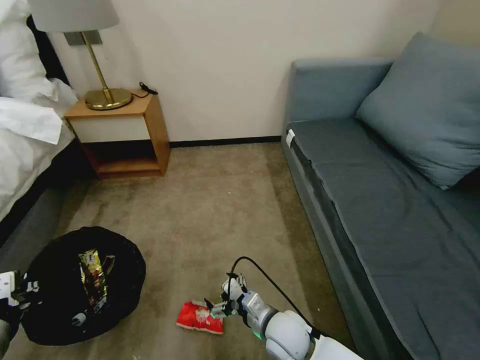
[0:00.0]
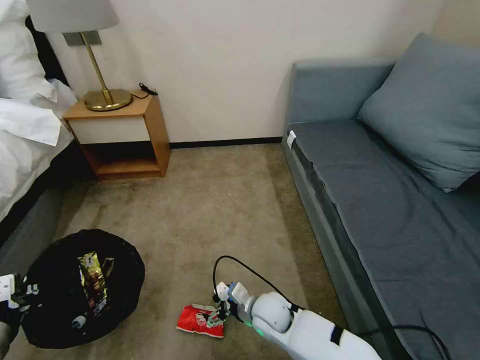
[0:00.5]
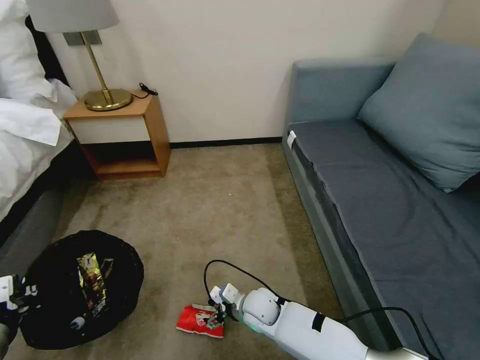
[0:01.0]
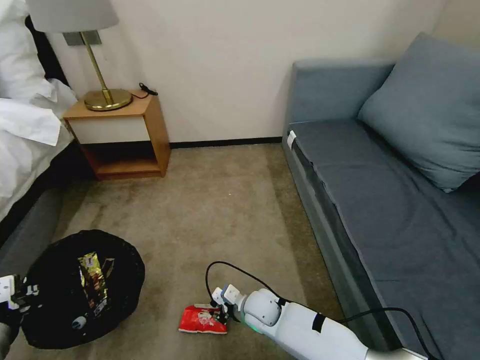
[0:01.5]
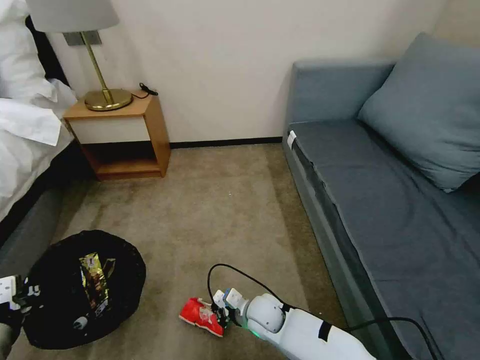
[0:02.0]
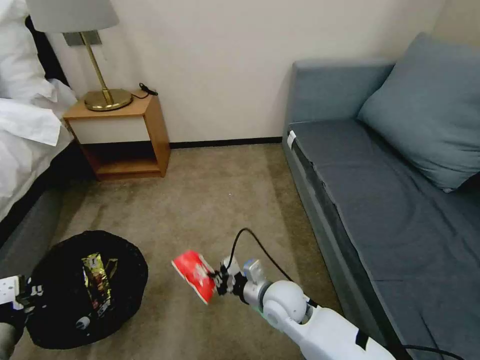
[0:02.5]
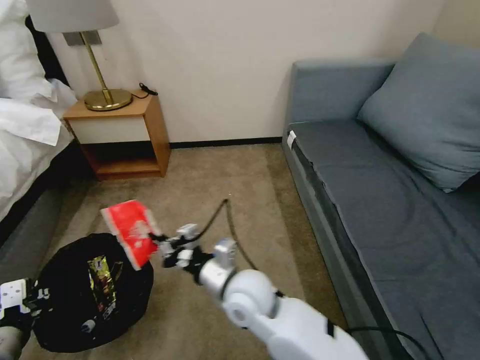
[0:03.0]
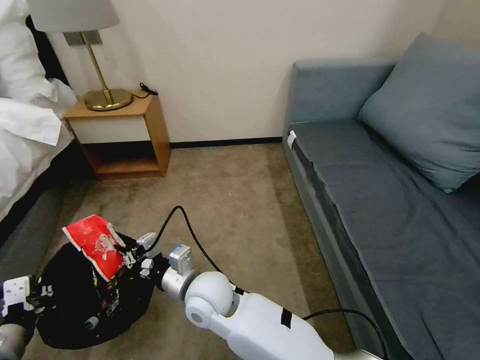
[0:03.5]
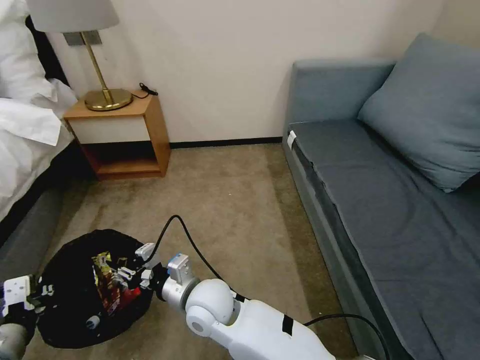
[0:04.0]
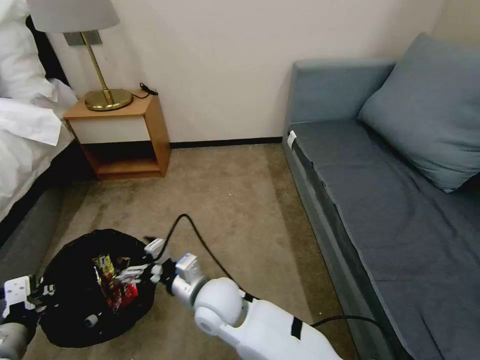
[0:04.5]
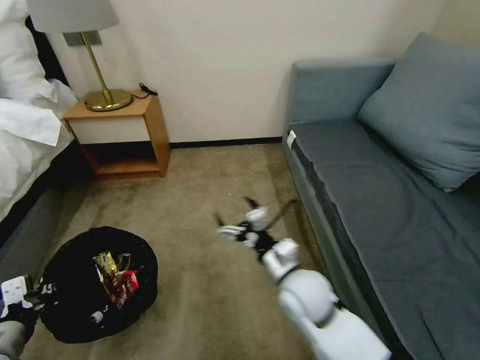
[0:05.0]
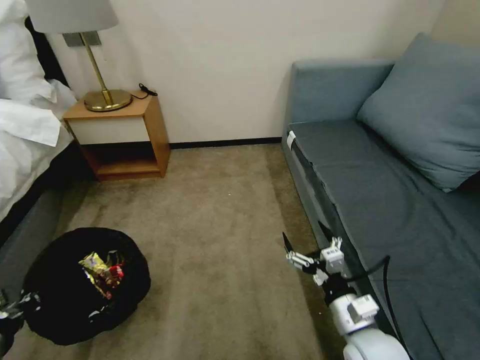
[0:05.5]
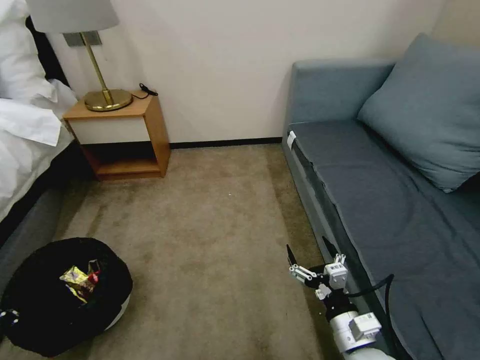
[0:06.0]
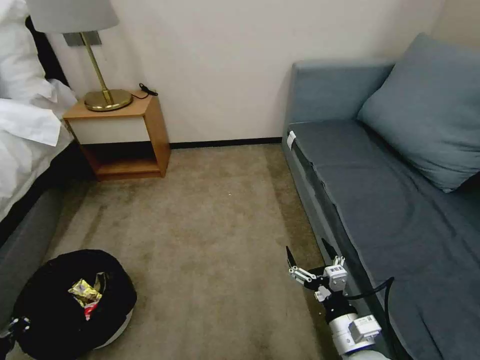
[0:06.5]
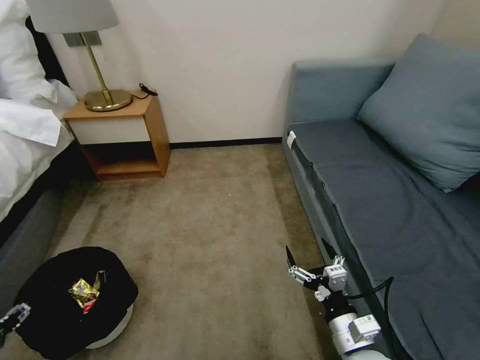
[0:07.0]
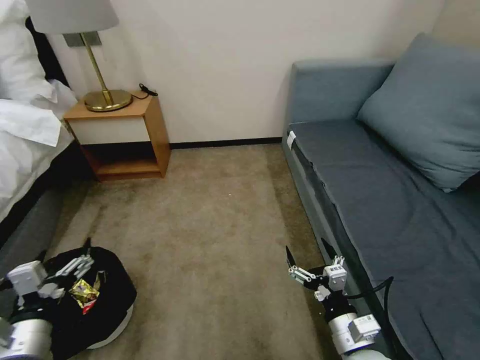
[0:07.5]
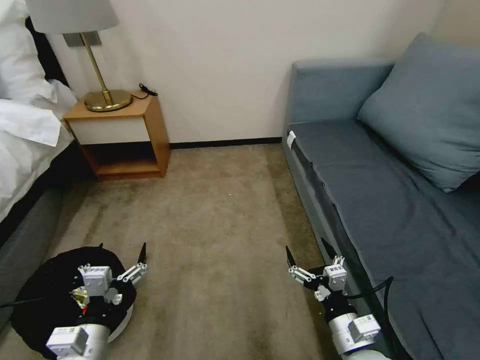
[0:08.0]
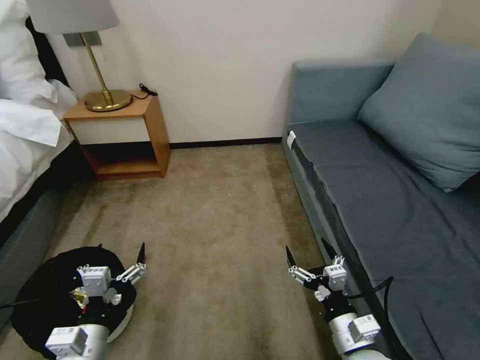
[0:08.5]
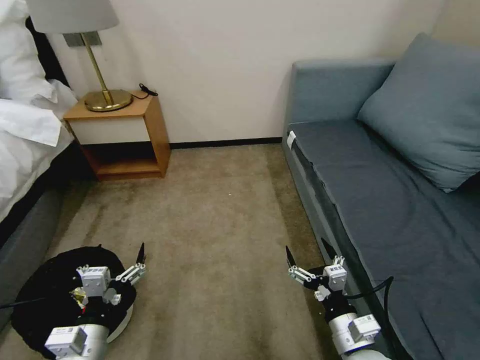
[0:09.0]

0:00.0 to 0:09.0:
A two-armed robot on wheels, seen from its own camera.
Task of the whole recording: Pick up the trash bin, then pick up the garbage on the floor and place it into the trash bin.
0:00.0 to 0:02.0: The right gripper goes approximately 10 cm downward and forward, and closes its fingers.
0:02.0 to 0:04.5: The right gripper travels upward and to the left by some 20 cm, and opens up.
0:04.5 to 0:07.0: The left gripper heads to the left, covering approximately 10 cm, and opens, while the right gripper travels to the right and backward by approximately 30 cm.
0:07.0 to 0:09.0: The left gripper goes about 20 cm to the right, and opens up.

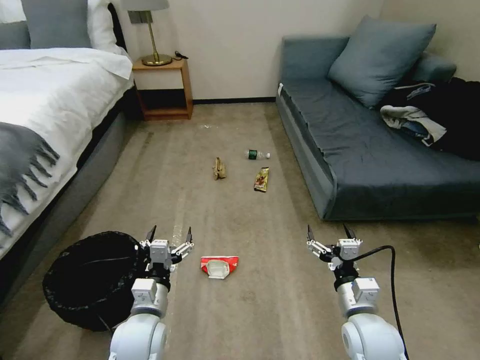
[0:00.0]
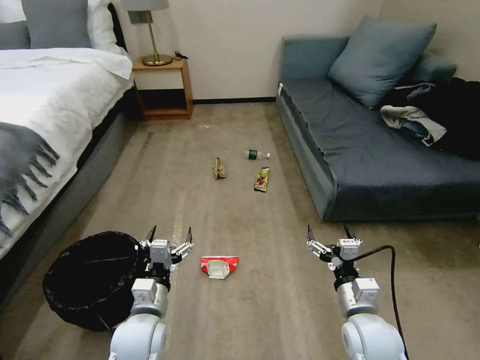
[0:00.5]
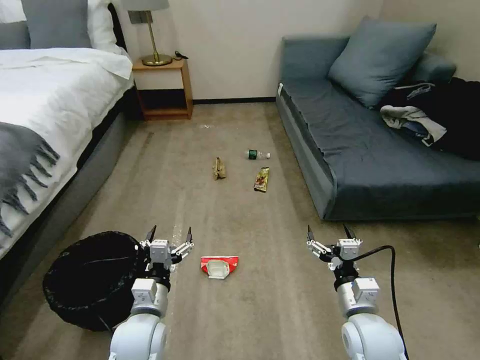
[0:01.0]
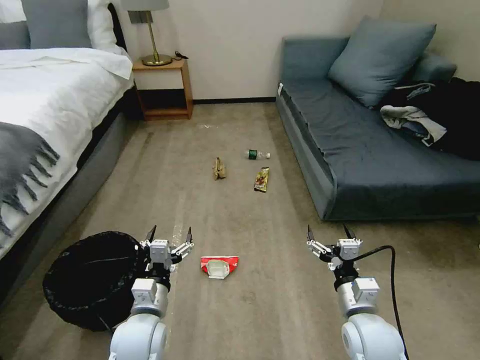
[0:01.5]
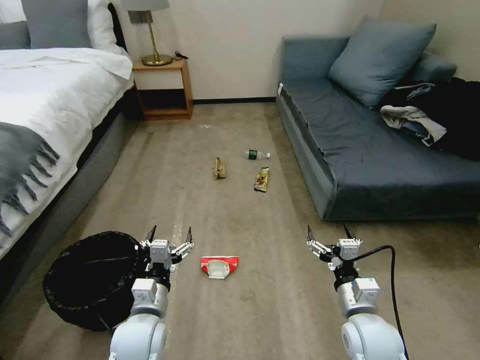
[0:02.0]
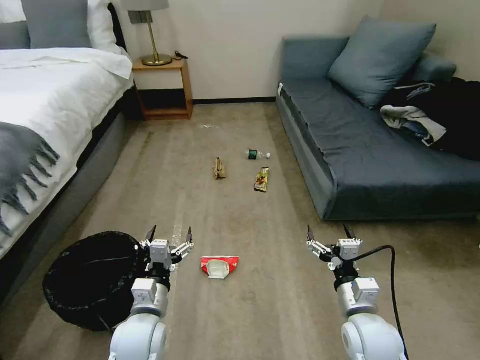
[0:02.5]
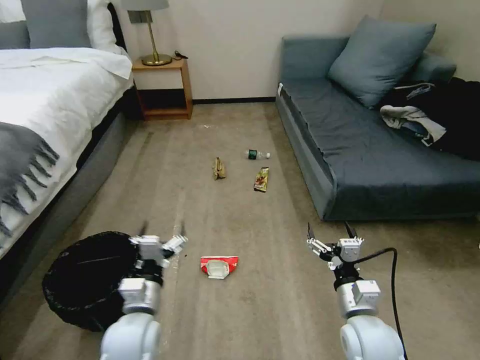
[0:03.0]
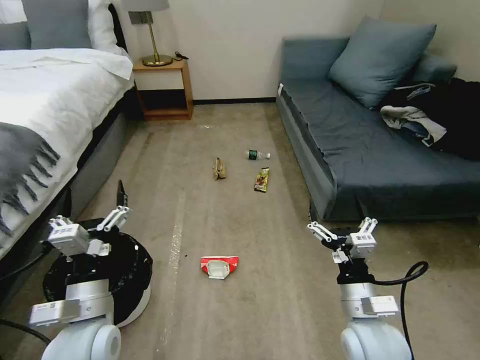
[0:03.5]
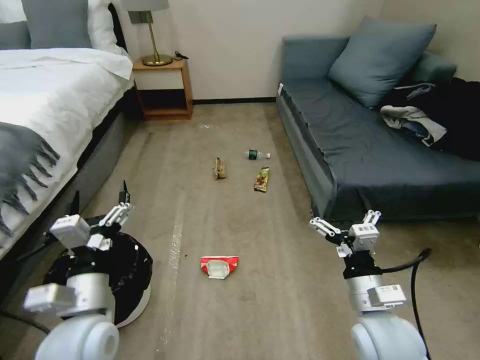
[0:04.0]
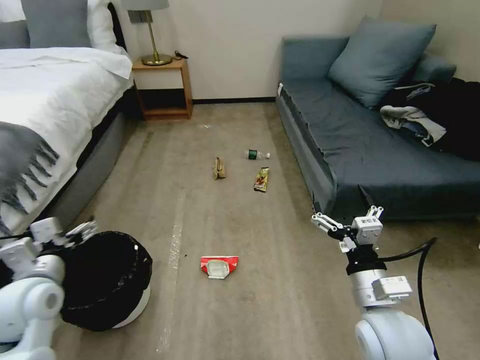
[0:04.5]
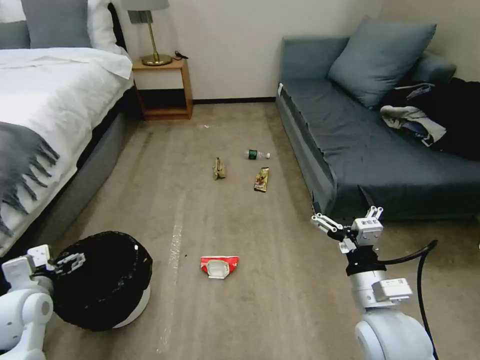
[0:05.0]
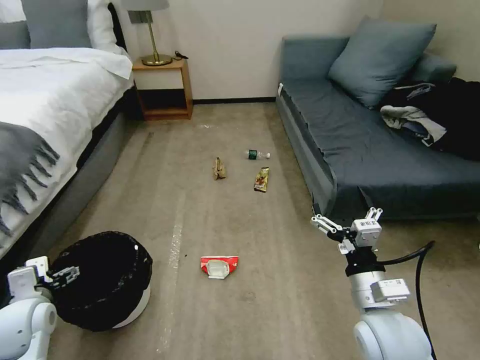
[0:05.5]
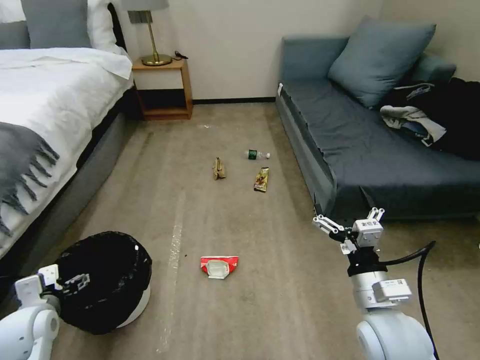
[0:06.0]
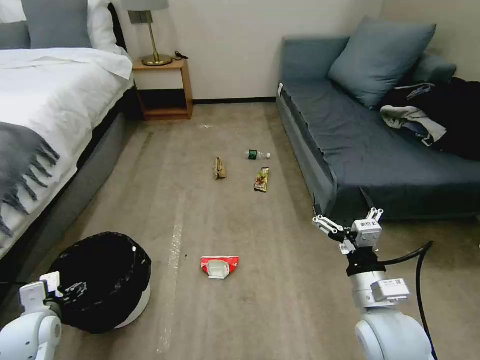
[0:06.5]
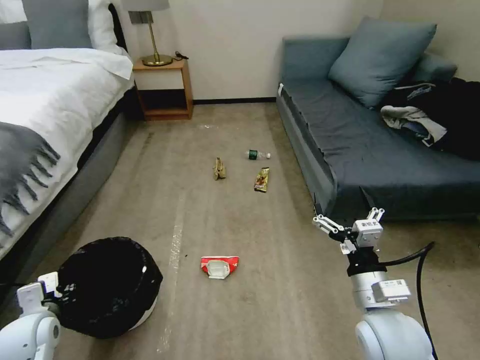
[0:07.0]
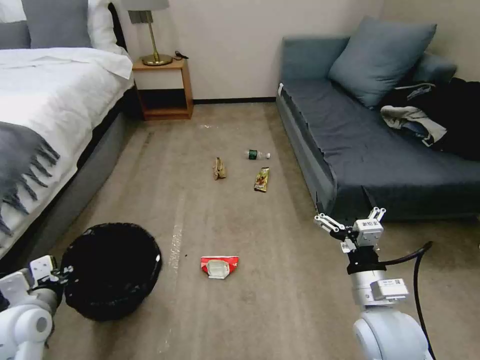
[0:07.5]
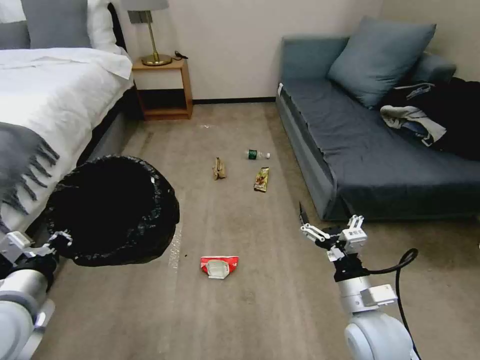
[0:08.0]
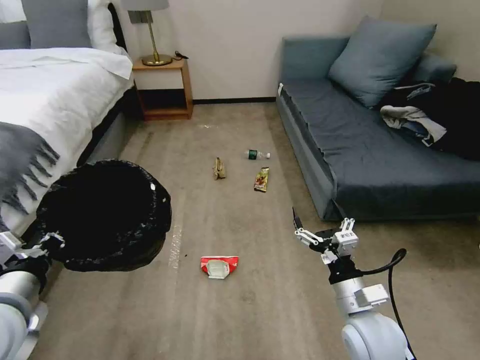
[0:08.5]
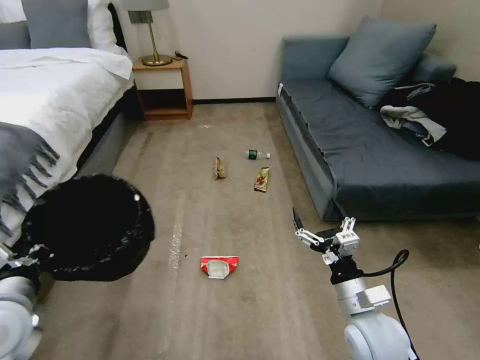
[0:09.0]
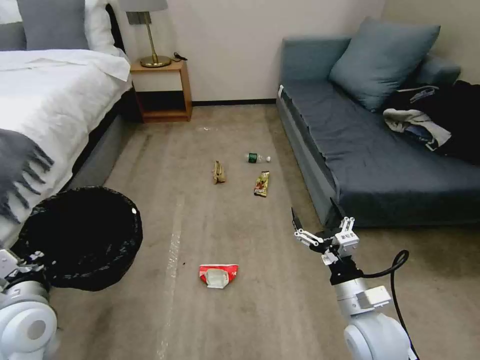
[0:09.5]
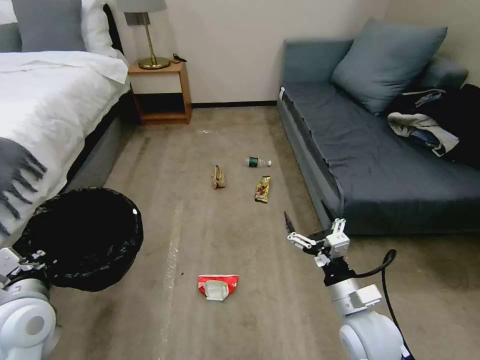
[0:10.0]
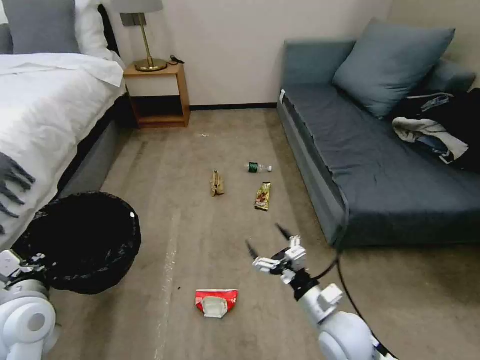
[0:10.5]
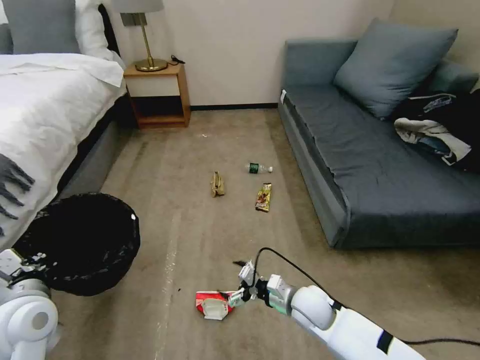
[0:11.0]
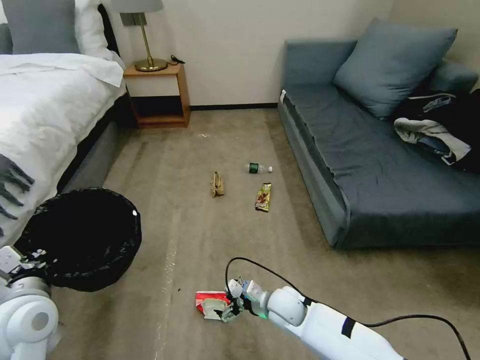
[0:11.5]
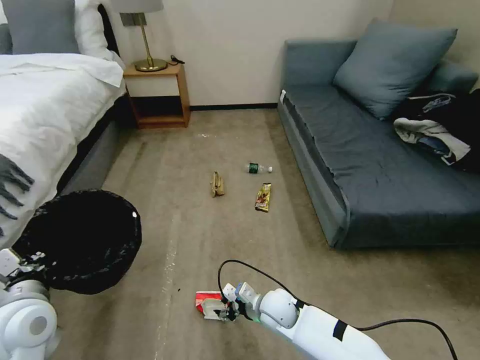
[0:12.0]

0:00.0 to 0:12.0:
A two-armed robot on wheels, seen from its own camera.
Task of the whole recording: Pick up the trash bin, then pick up the garbage on the floor and place it into the trash bin.
0:02.0 to 0:04.0: The right gripper moves upward, some 5 cm, while the left gripper heads upward, covering roughly 10 cm.
0:04.0 to 0:06.0: The left gripper moves to the left and downward, approximately 20 cm.
0:06.0 to 0:08.0: The left gripper travels upward and to the right by approximately 15 cm, and closes its fingers.
0:08.0 to 0:10.0: The left gripper is displaced downward by roughly 5 cm.
0:10.0 to 0:12.0: The right gripper heads to the left, downward and forward, covering roughly 20 cm, and closes its fingers.

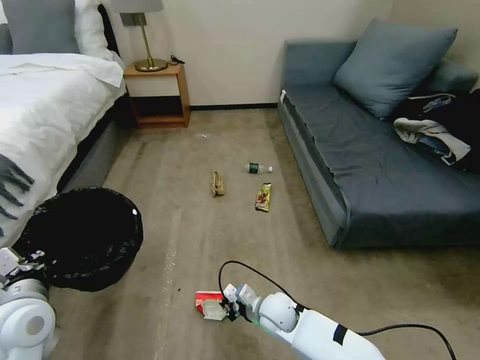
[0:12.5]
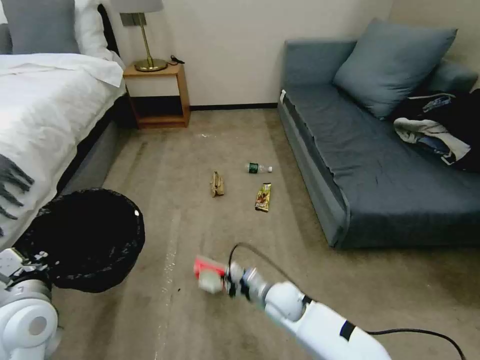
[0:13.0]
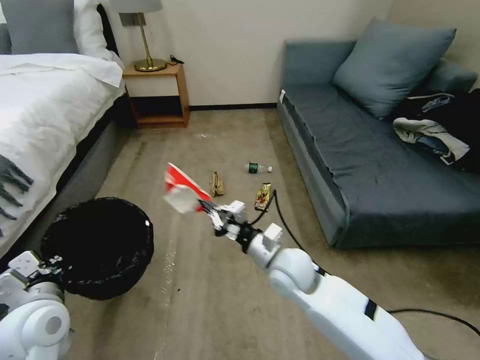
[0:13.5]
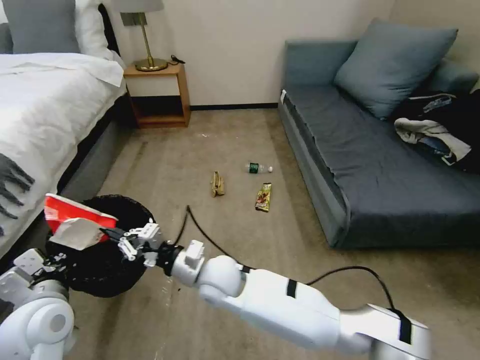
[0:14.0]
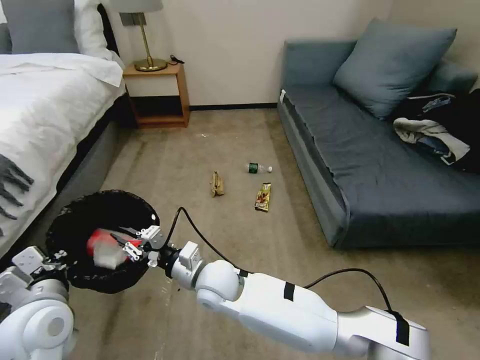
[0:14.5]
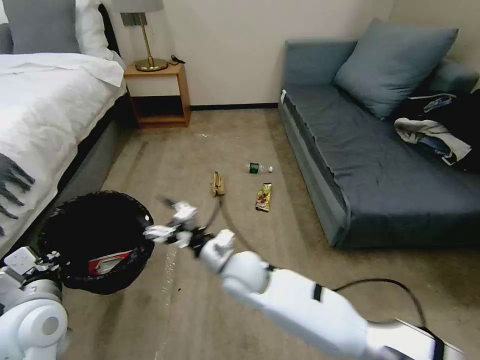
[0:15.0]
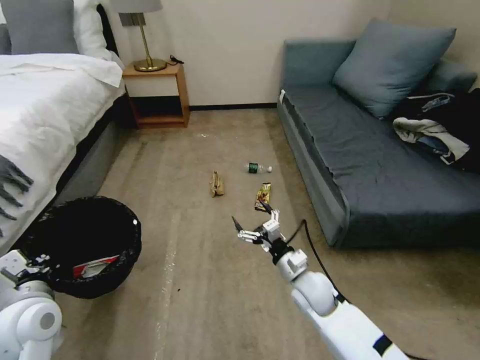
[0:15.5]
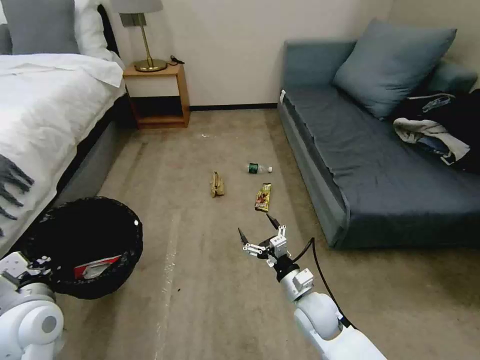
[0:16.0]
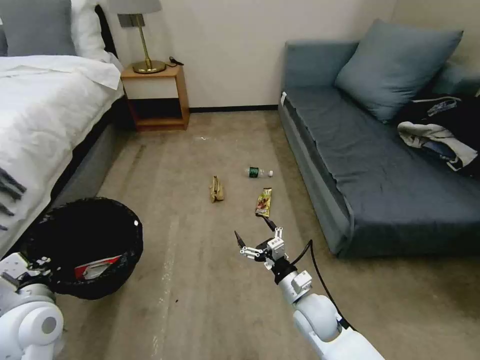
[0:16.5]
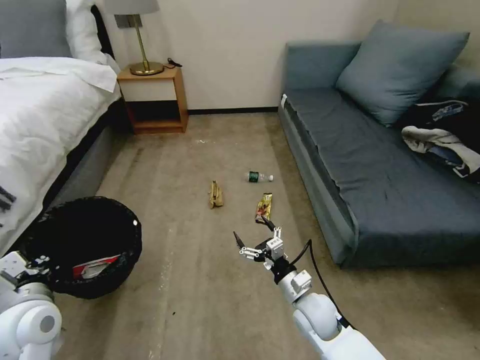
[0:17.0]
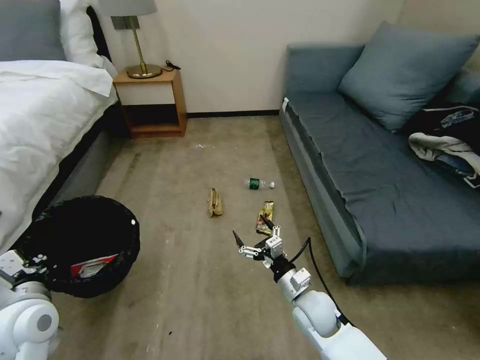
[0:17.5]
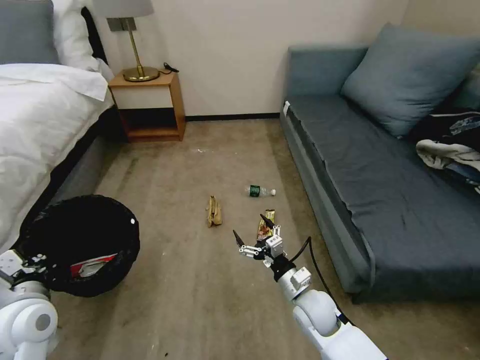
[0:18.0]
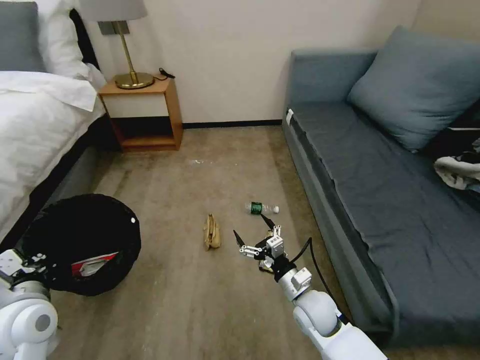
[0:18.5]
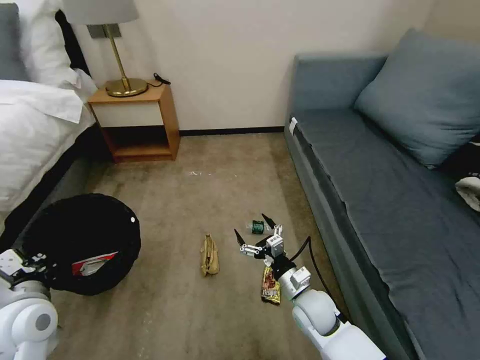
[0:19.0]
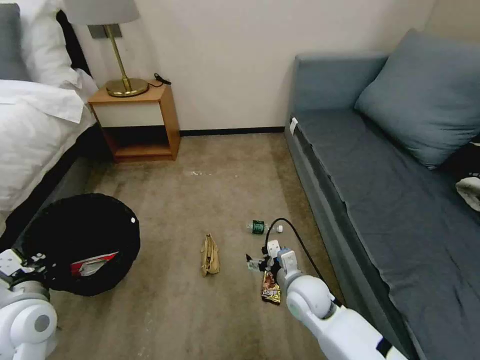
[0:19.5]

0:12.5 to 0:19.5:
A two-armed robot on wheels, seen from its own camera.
Task of the whole recording: Pick up the trash bin, then pick up the garbage on the floor and place it into the trash bin.
0:12.5 to 0:14.5: The right gripper is displaced to the left and upward by roughly 20 cm.
0:14.5 to 0:16.0: The right gripper travels to the right by about 25 cm, and opens up.
